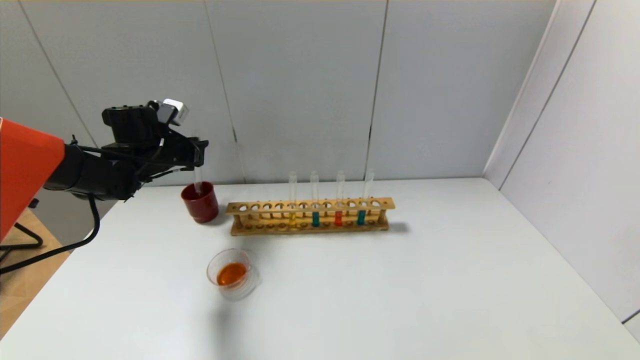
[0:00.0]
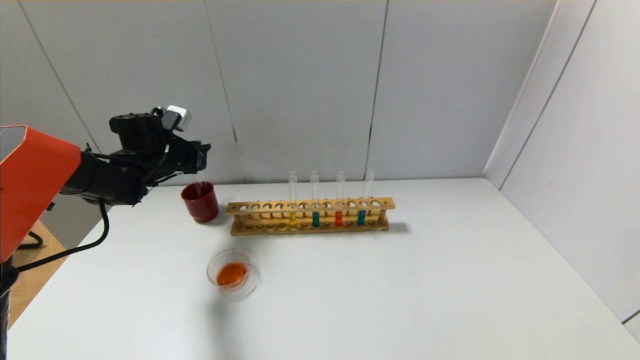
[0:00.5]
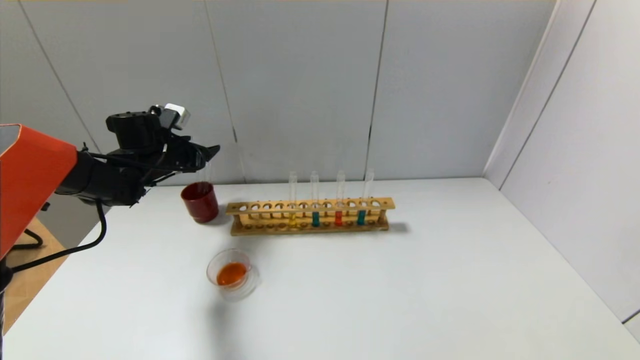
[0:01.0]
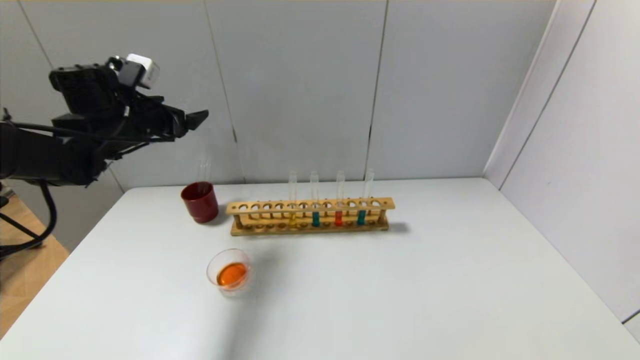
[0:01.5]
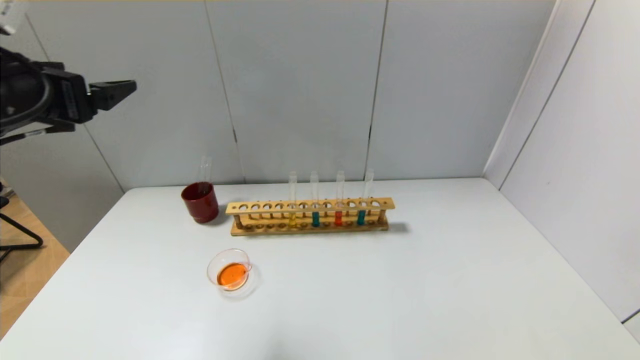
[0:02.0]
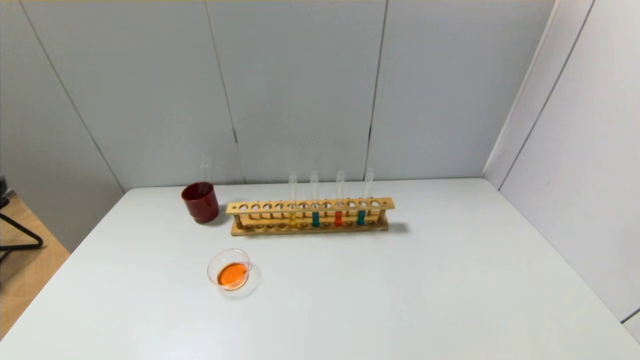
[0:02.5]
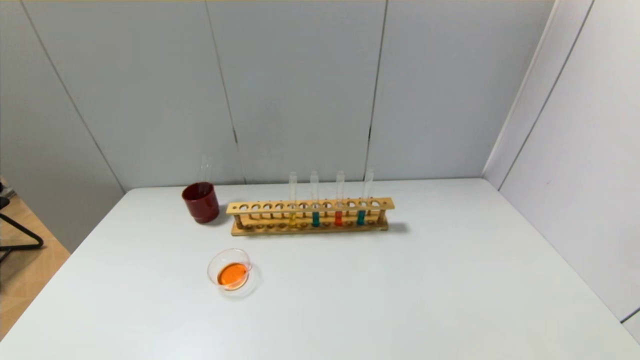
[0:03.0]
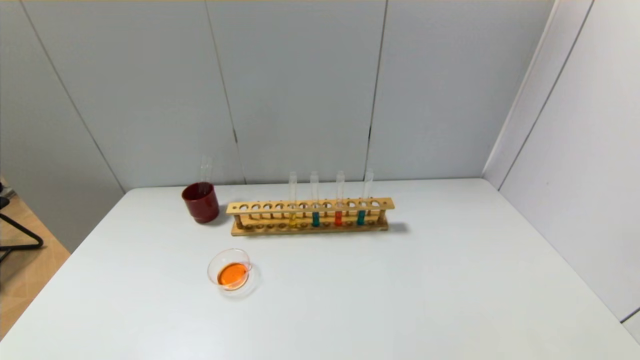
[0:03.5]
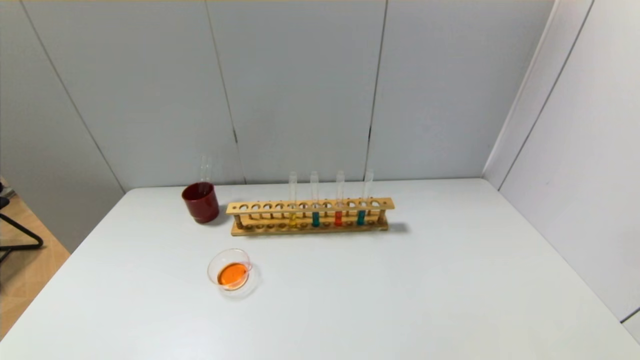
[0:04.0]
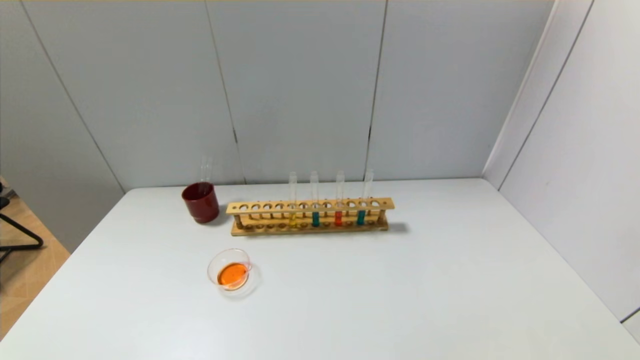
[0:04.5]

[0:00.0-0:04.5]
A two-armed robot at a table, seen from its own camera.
0:00.0 to 0:02.0: The left gripper heads backward and upward, covering approximately 25 cm, and opens its fingers.
0:02.0 to 0:04.5: The left gripper travels backward and downward by approximately 35 cm.
